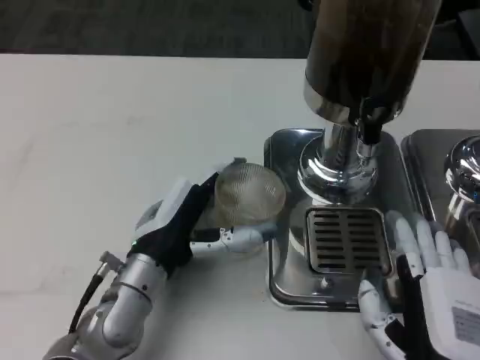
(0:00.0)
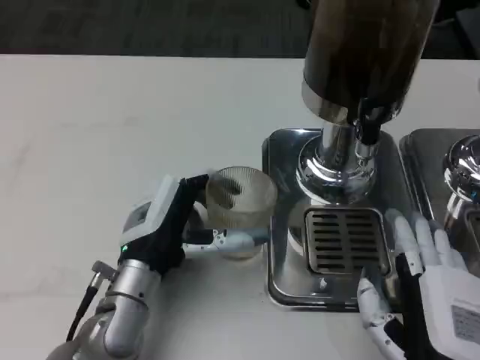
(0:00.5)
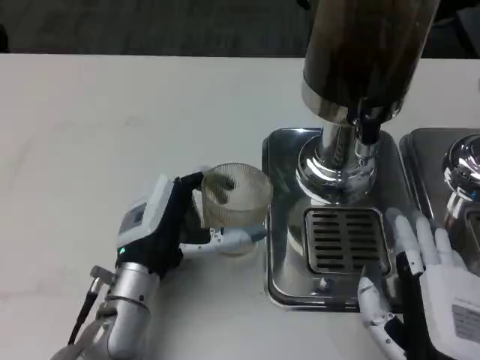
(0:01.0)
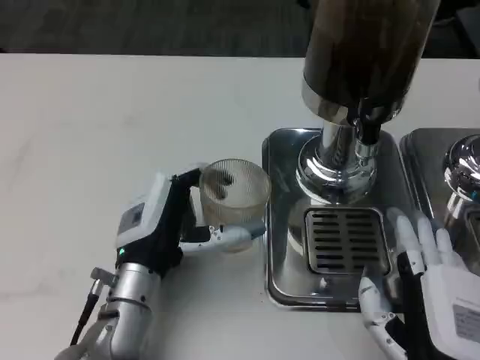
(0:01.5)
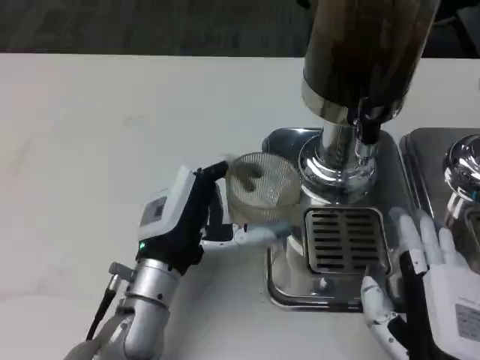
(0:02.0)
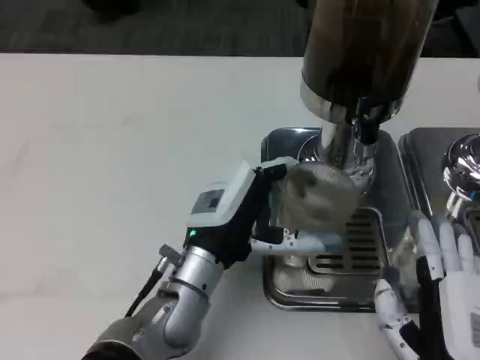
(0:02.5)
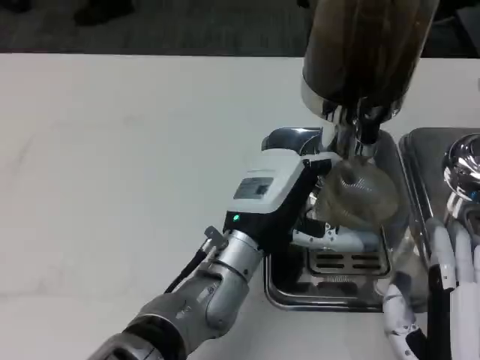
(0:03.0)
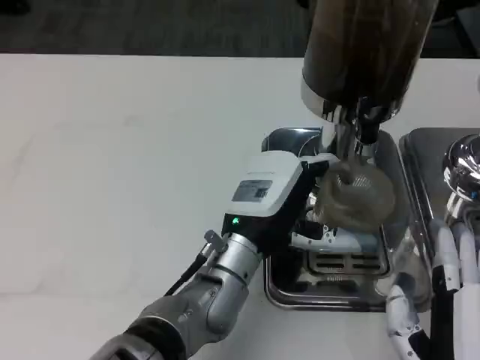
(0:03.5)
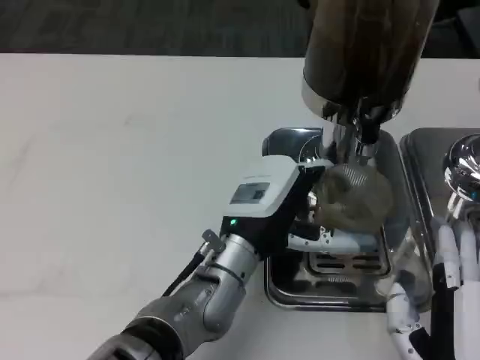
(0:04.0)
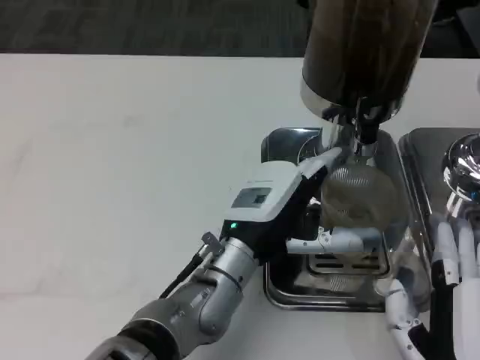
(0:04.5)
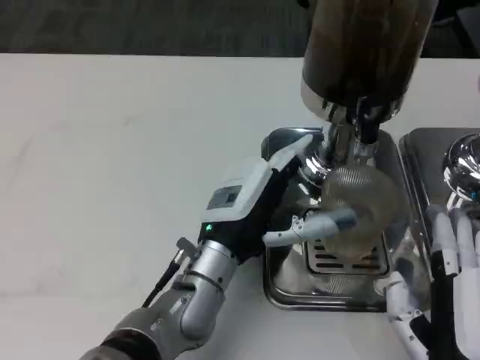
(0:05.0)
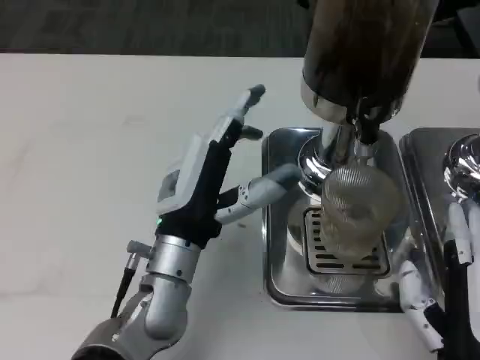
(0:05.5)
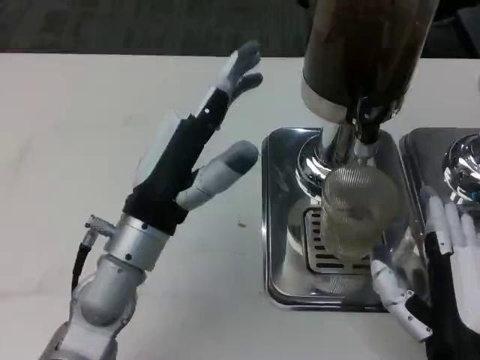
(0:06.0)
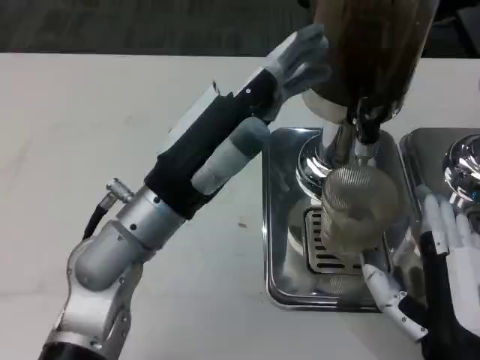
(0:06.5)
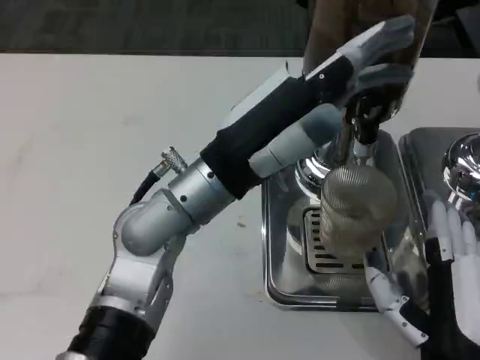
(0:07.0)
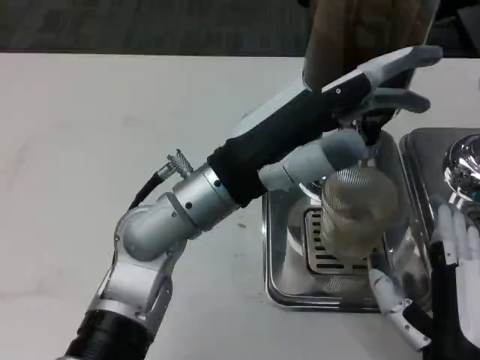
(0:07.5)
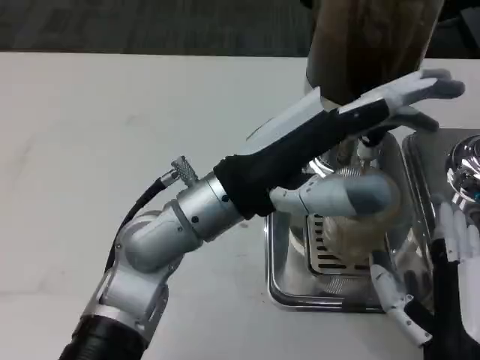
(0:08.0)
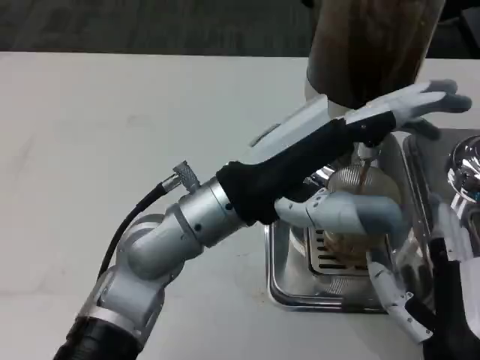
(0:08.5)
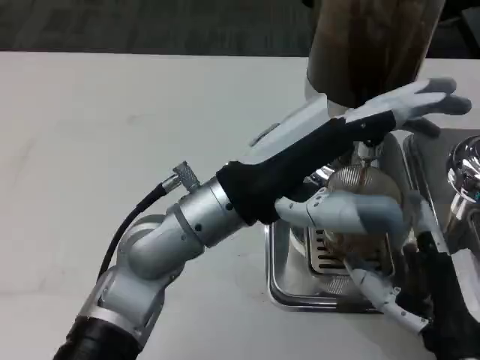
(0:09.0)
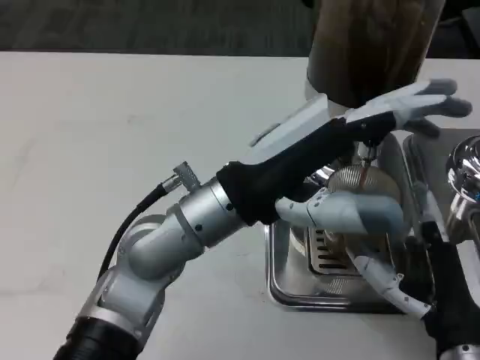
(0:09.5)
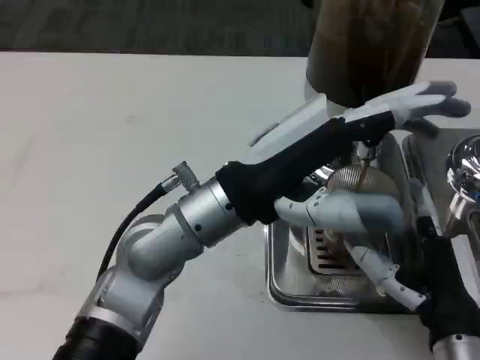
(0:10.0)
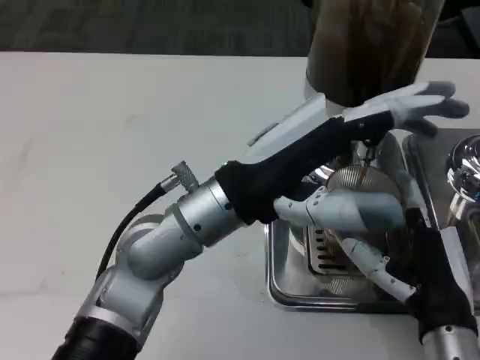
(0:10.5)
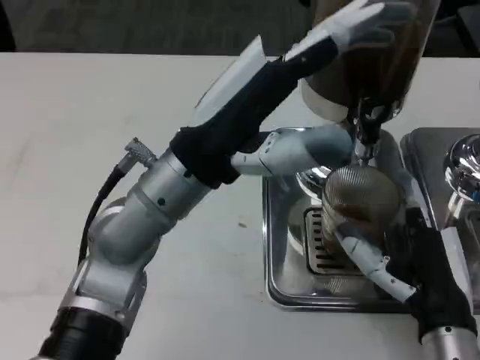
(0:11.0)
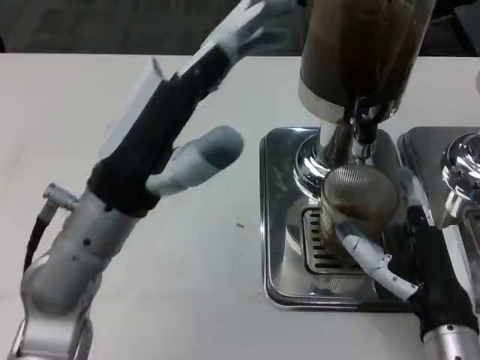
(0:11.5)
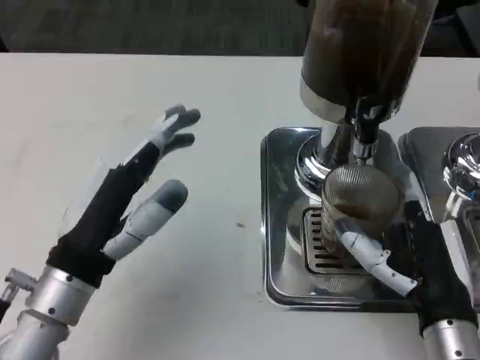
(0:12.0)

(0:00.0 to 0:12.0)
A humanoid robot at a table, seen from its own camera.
Task of the whole recording: Grasp the cup under the faucet to collect the drink, then remove the cup.
0:00.0 - 0:02.0: There are only small adjustments of the hands.
0:02.0 - 0:04.0: The left hand is displaced to the right by roughly 5 cm.
0:04.0 - 0:06.0: The left hand is displaced to the left and upward by some 10 cm.
0:06.0 - 0:08.0: The left hand shifts approximately 10 cm upward and to the right.
0:10.0 - 0:12.0: The left hand moves to the left, downward and backward, some 15 cm.

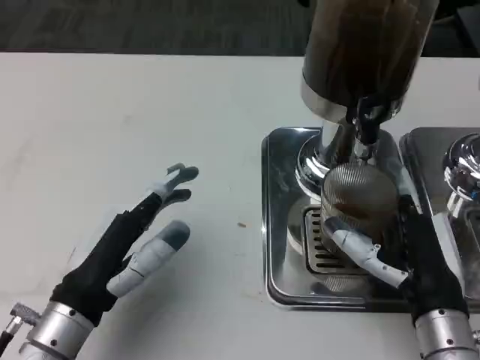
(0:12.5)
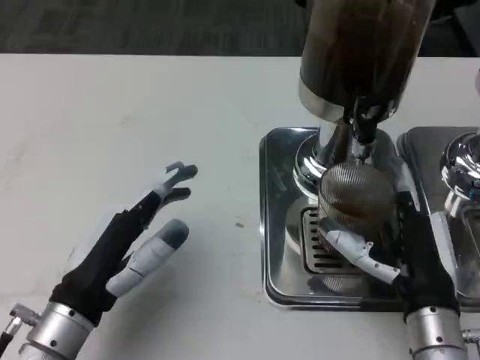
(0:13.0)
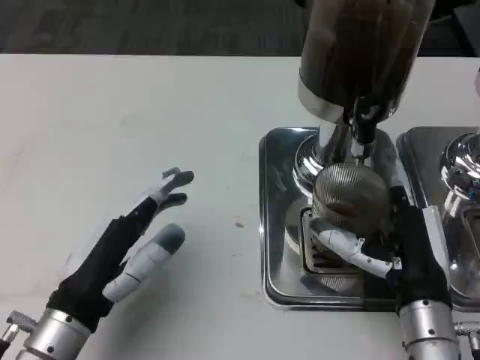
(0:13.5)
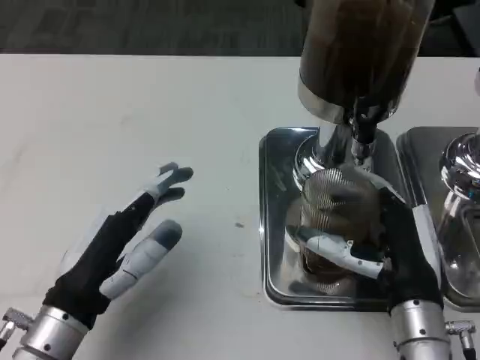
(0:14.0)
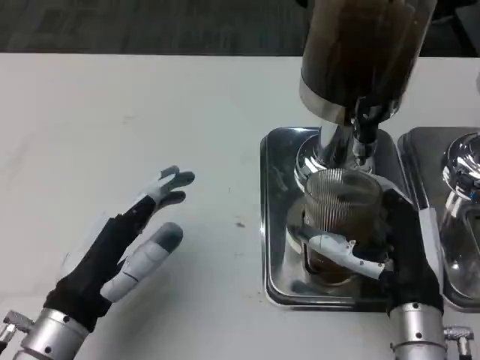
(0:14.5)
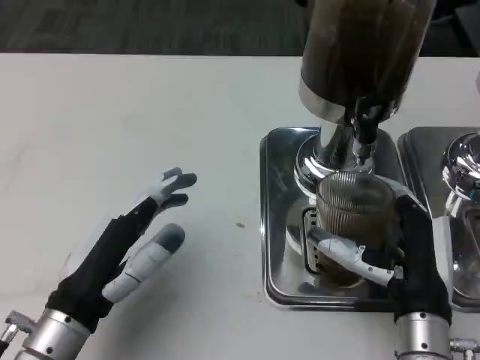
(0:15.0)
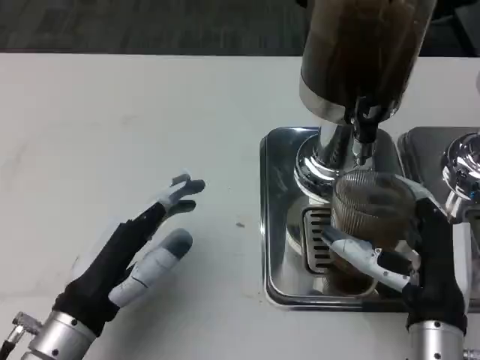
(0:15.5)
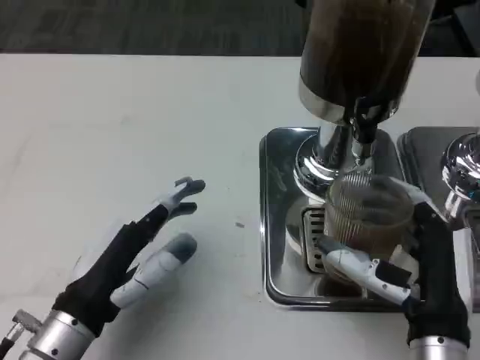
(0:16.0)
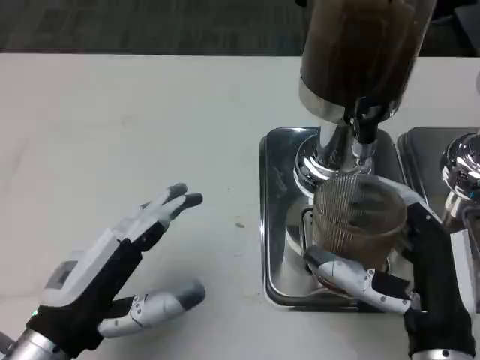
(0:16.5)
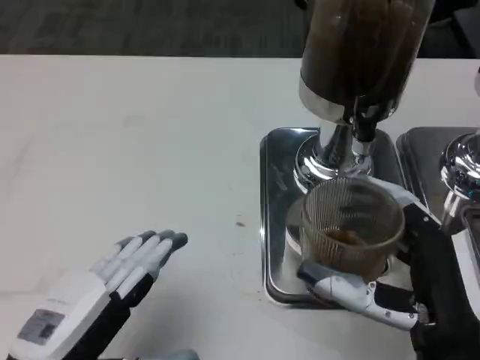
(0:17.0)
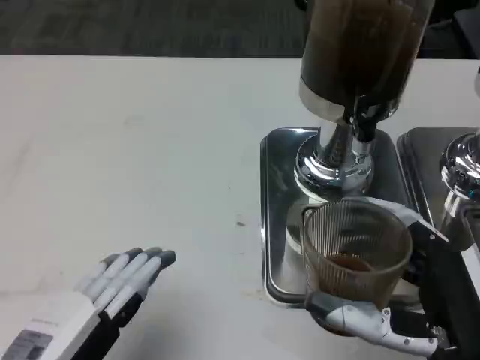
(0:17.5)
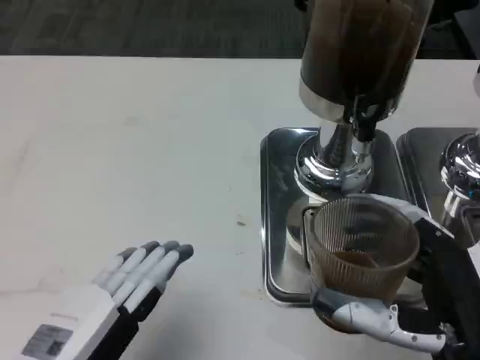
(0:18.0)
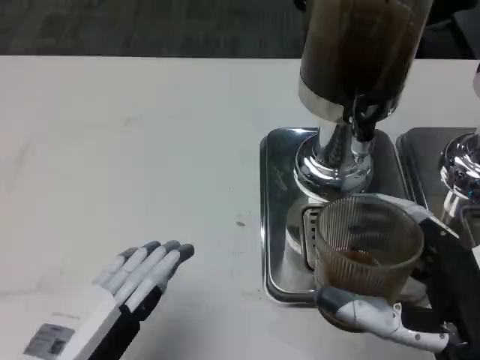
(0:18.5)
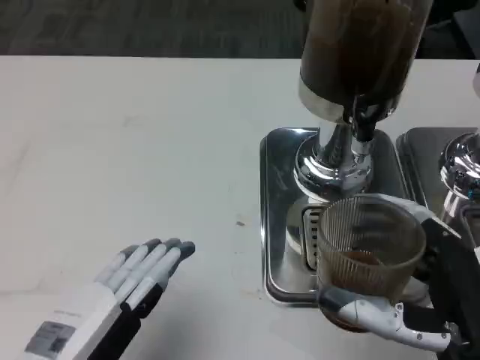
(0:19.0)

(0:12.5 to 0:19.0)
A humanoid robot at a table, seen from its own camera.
Task of the whole recording: Grasp the cup under the faucet to collect the drink, then remove the cup.
0:12.5 - 0:14.5: There are only small adjustments of the hands.
0:14.5 - 0:17.0: Both hands travel together backward, about 10 cm.
0:17.0 - 0:19.0: The hands move only a little.

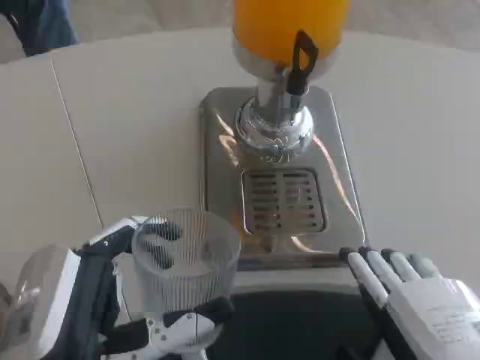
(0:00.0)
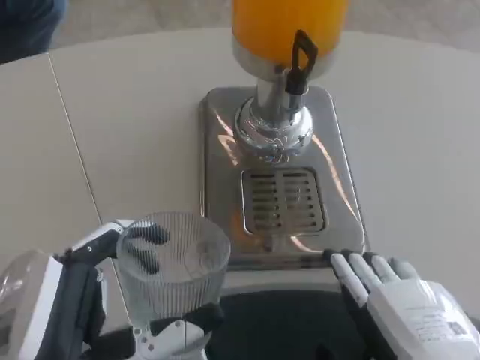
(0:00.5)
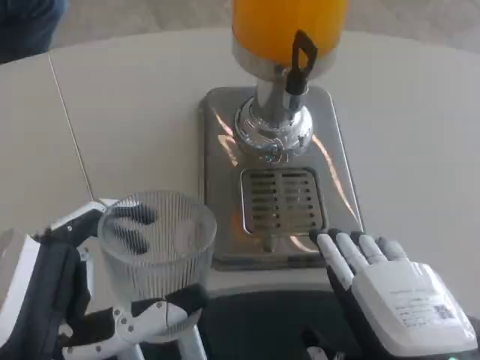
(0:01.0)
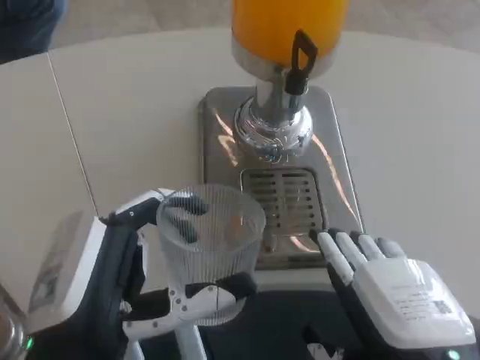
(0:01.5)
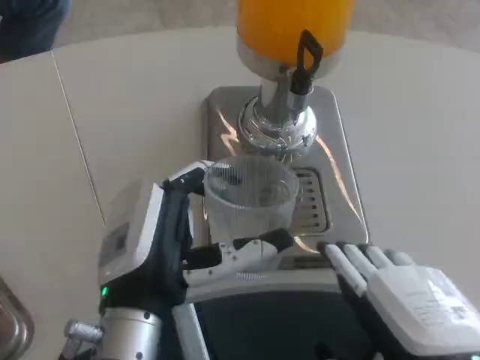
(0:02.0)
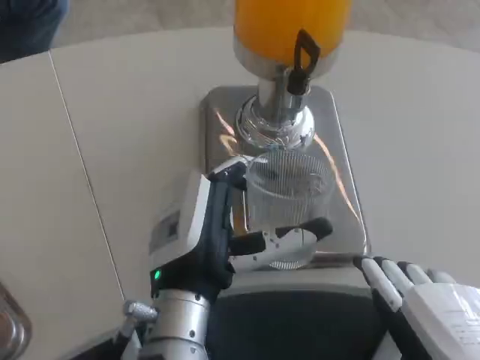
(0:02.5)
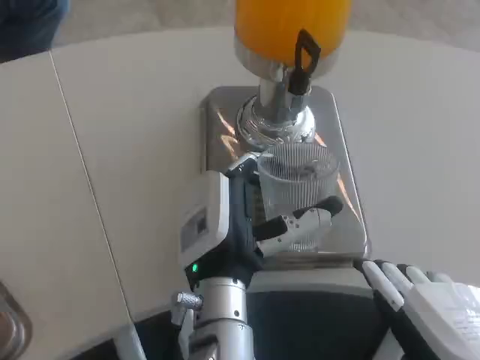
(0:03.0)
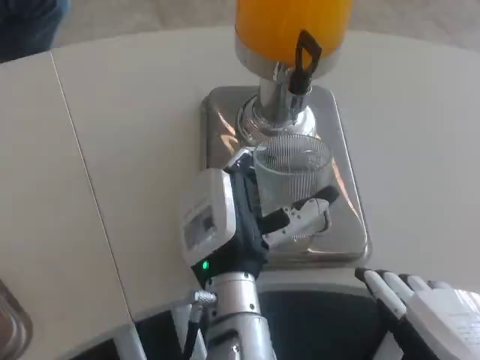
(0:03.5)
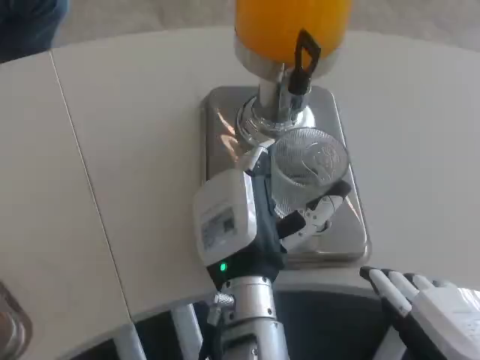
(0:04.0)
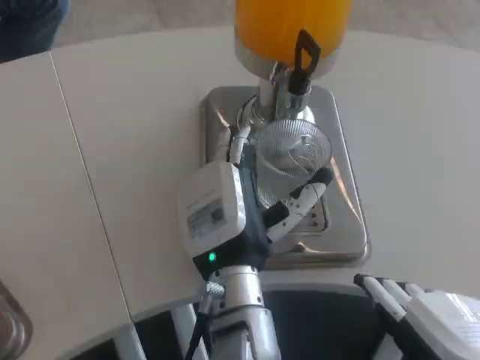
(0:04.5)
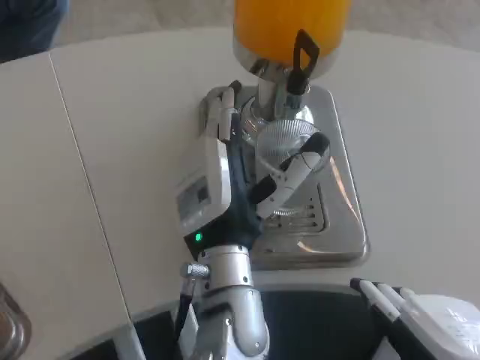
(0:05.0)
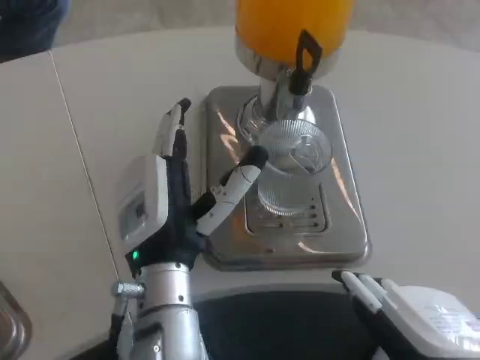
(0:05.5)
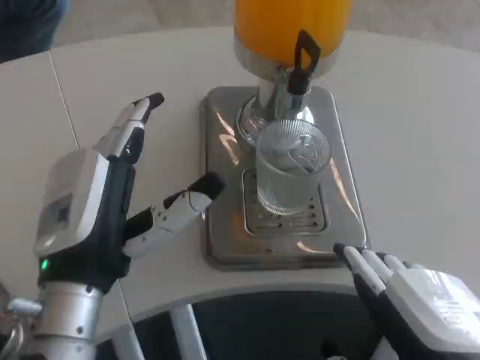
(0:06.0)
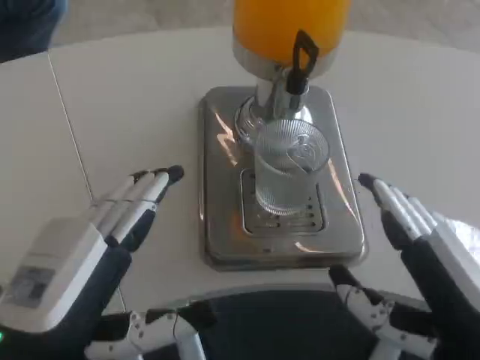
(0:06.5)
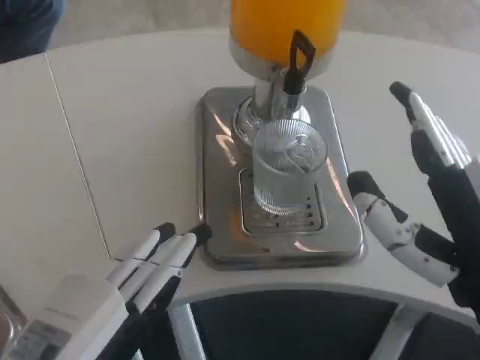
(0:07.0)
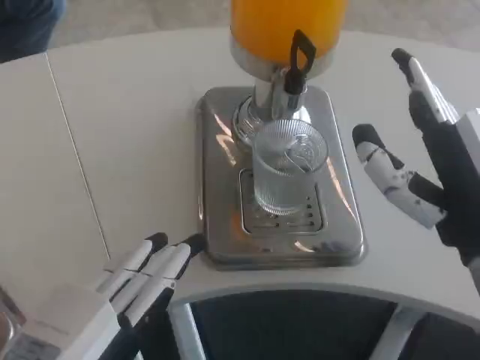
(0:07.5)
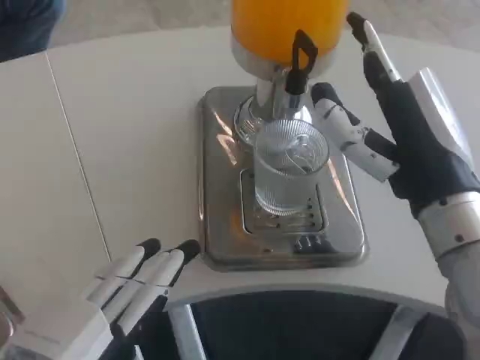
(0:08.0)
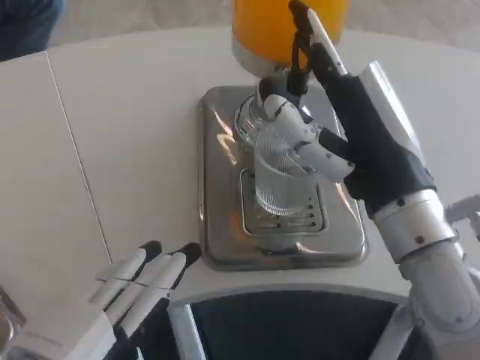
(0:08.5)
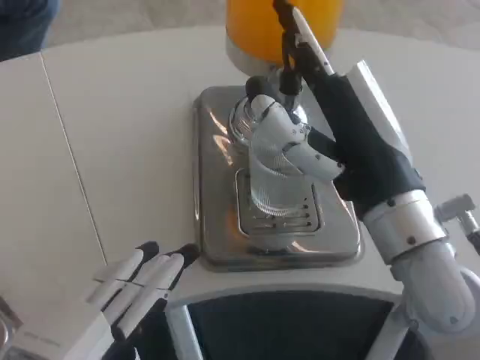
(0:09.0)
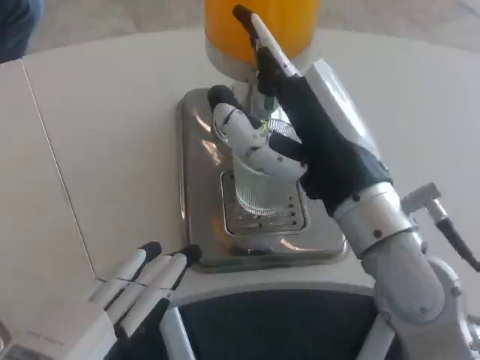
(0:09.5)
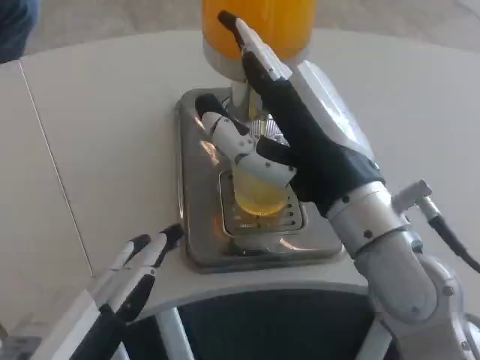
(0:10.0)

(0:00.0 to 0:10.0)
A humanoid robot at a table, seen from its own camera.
Task of the whole recording: Grasp the cup under the faucet to collect the drink, then remove the cup.
0:00.0 - 0:02.0: The left hand is displaced forward by approximately 10 cm.
0:02.0 - 0:04.0: The left hand moves to the right and forward, roughly 15 cm.
0:04.0 - 0:06.0: The left hand travels to the left by some 15 cm.
0:06.0 - 0:08.0: The right hand goes some 10 cm forward. The left hand travels backward by about 10 cm.
0:08.0 - 0:10.0: The right hand moves to the left, about 5 cm.
